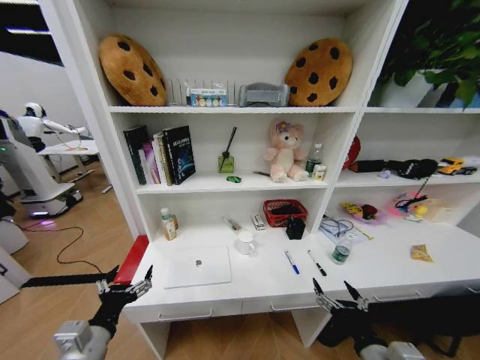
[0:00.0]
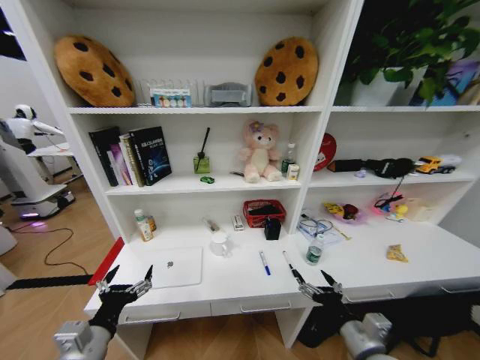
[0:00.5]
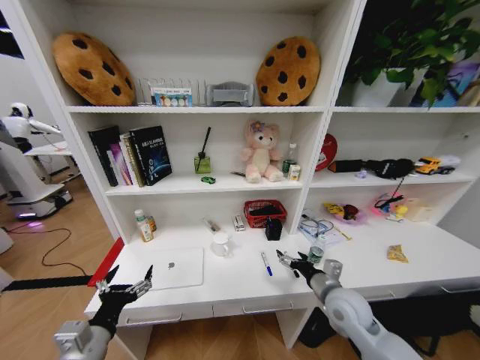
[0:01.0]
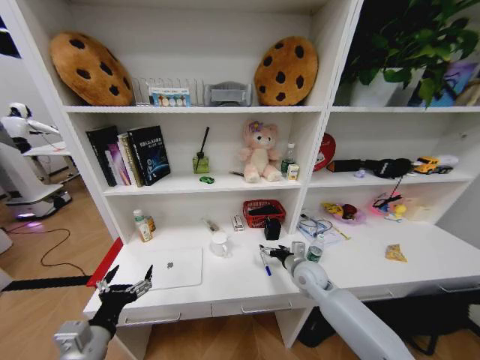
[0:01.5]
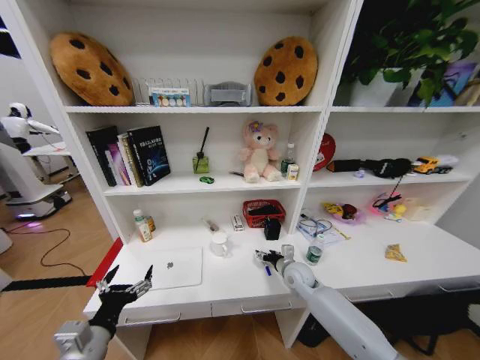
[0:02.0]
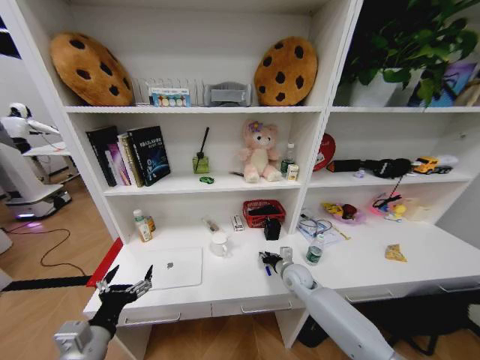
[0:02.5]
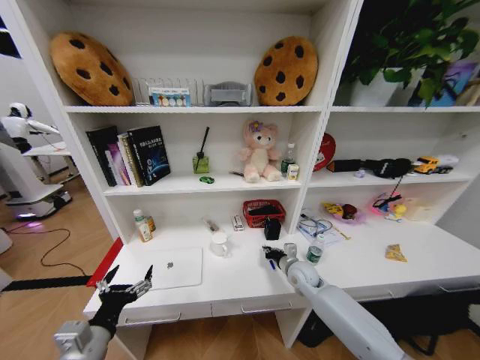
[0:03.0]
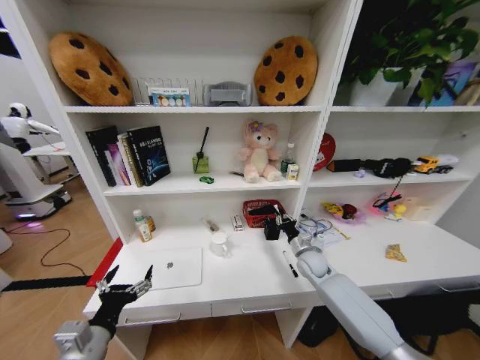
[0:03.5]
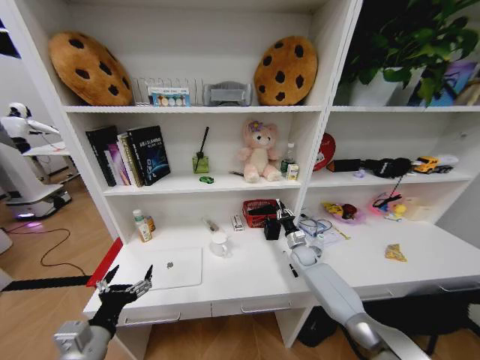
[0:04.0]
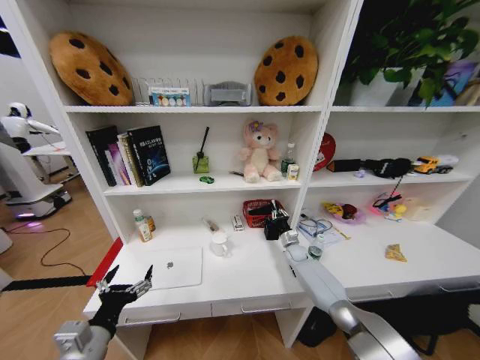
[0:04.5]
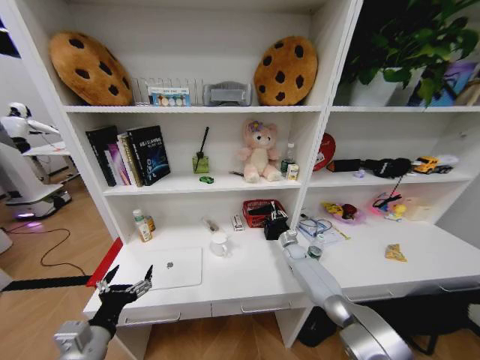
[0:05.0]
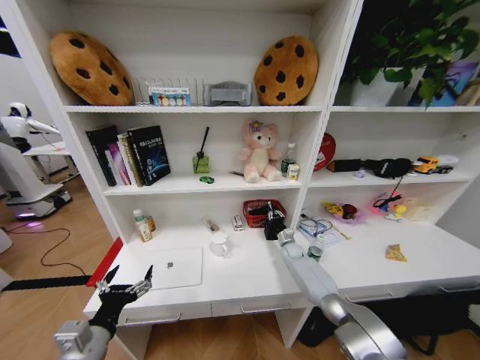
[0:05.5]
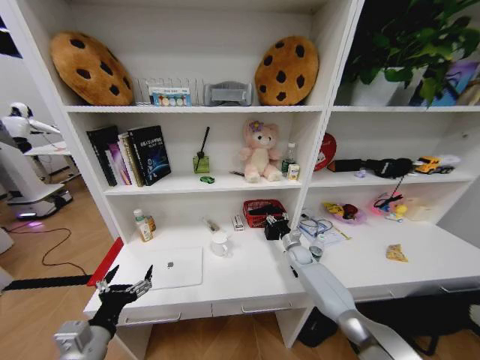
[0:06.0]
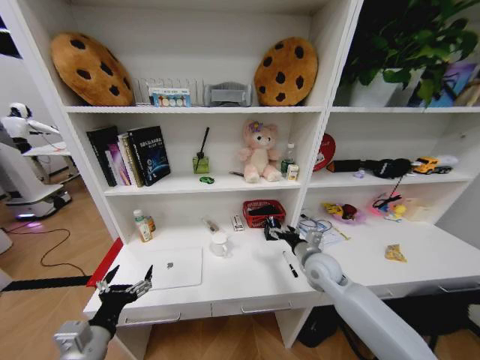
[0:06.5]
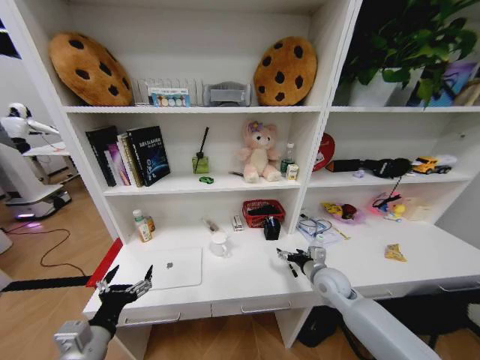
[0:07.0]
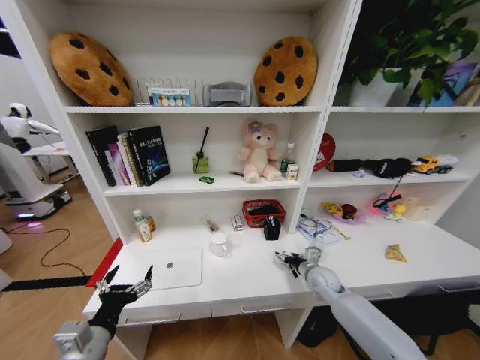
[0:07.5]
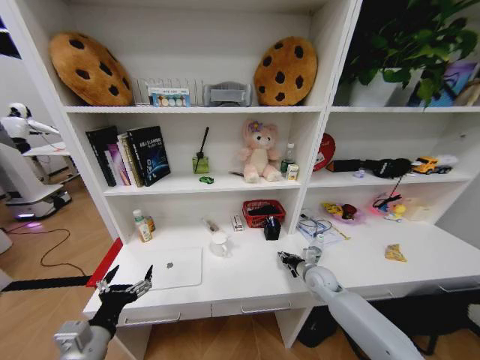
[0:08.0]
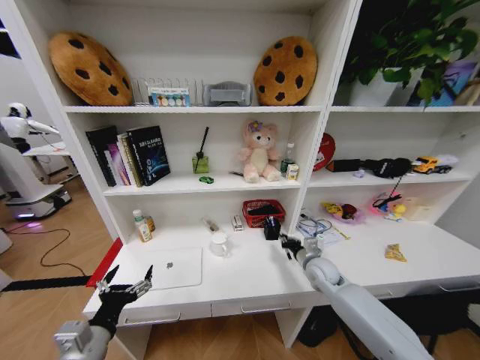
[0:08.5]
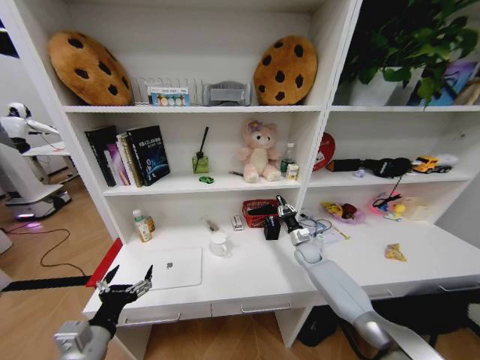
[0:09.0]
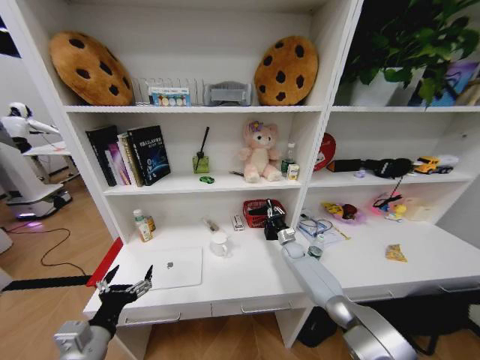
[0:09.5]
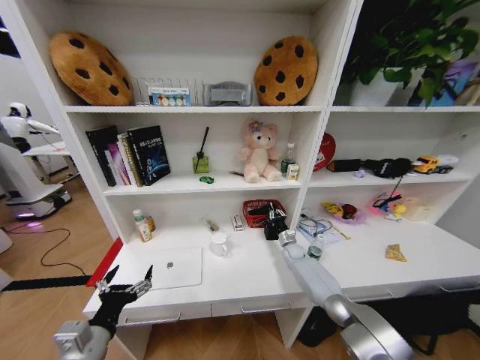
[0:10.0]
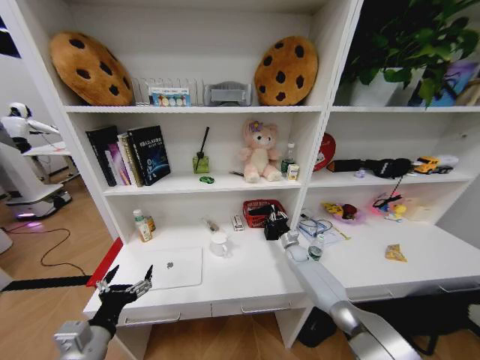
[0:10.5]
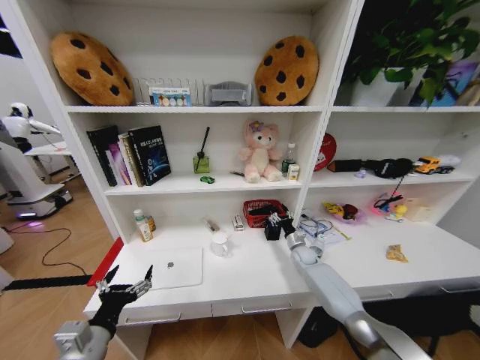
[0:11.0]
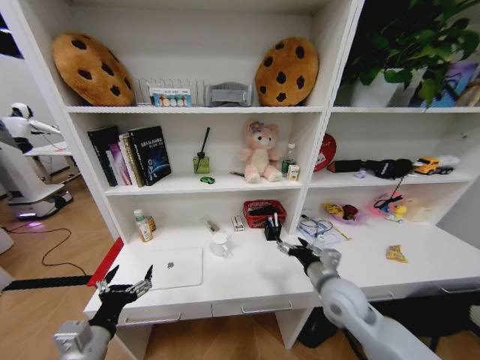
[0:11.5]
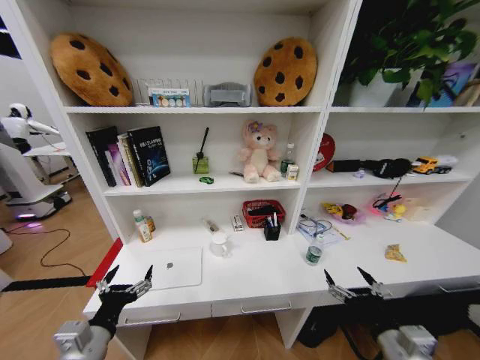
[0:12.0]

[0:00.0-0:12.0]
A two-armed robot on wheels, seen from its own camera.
Task of the whole recording: Organize the objects on the table.
0:00.0 to 0:02.0: The right gripper travels forward by approximately 30 cm.
0:02.0 to 0:04.0: The right gripper goes some 15 cm forward and to the right, and closes its fingers.
0:04.0 to 0:06.0: The right gripper opens.
0:06.0 to 0:08.0: The right gripper is displaced backward by roughly 15 cm, and opens, then closes again.
0:08.0 to 0:10.0: The right gripper is displaced forward and downward by roughly 15 cm, and closes its fingers.
0:10.0 to 0:12.0: The right gripper heads backward and upward, covering about 50 cm, and opens its fingers.

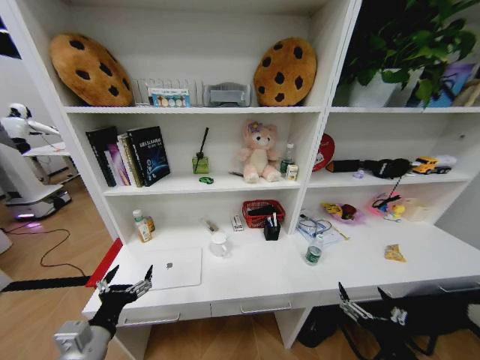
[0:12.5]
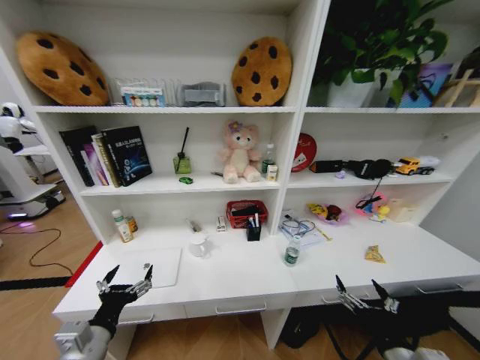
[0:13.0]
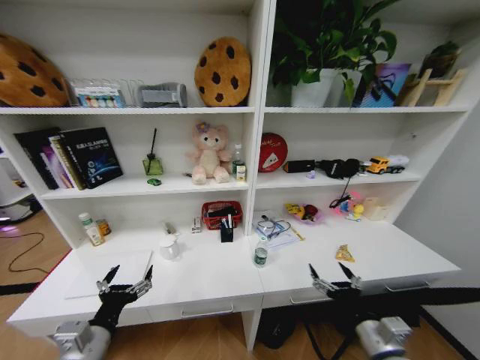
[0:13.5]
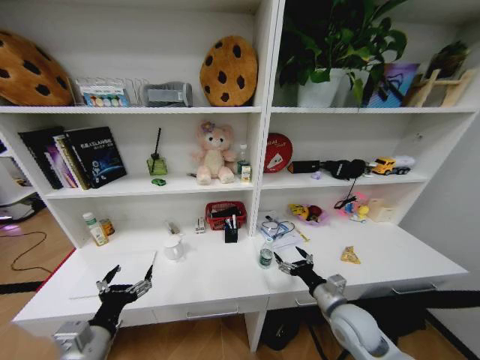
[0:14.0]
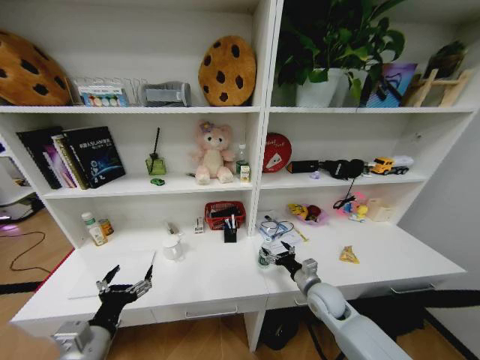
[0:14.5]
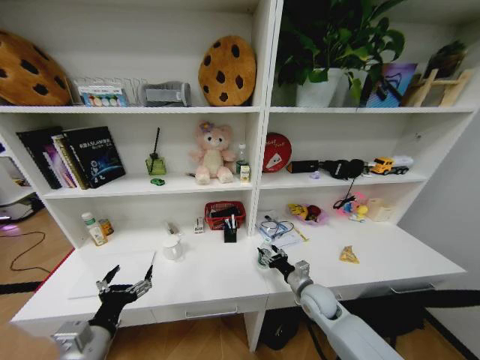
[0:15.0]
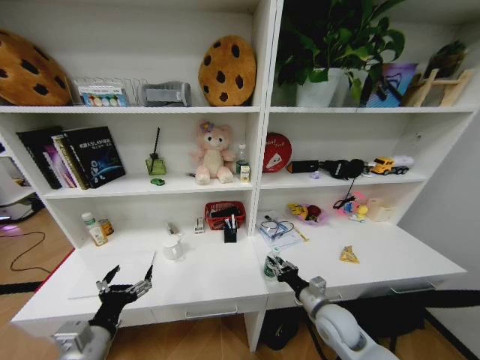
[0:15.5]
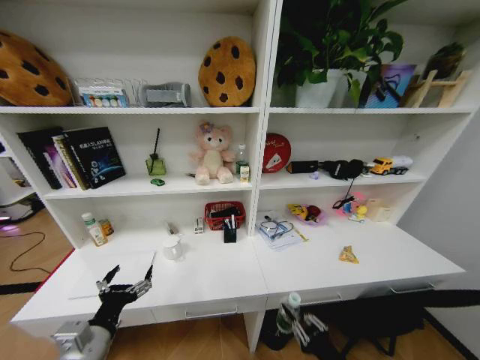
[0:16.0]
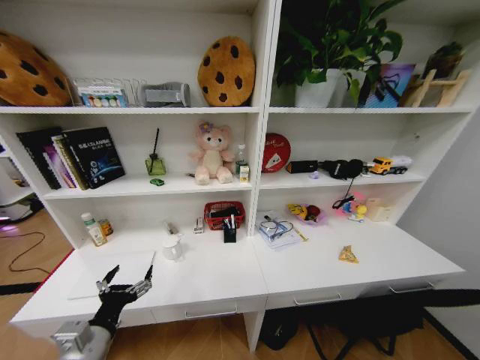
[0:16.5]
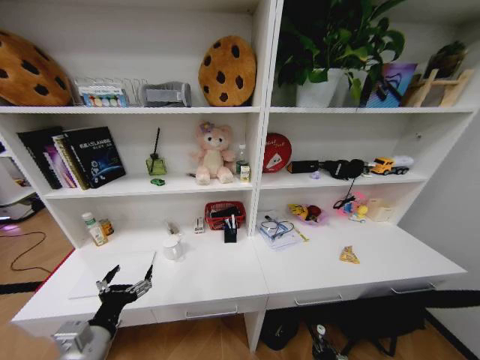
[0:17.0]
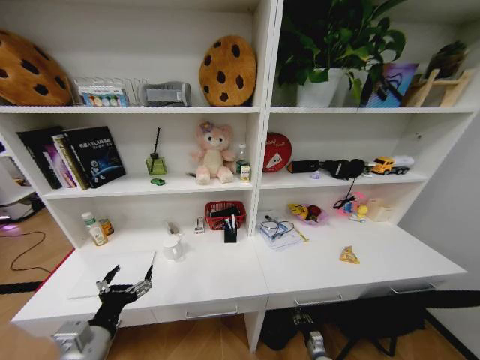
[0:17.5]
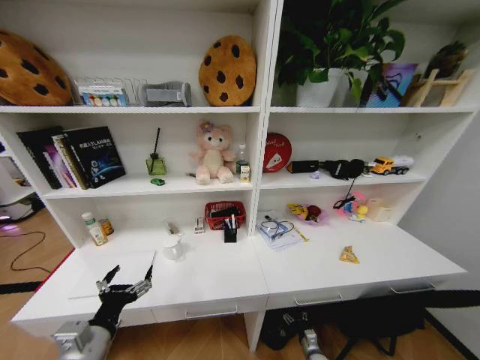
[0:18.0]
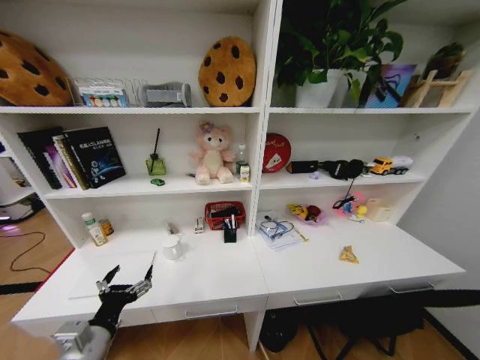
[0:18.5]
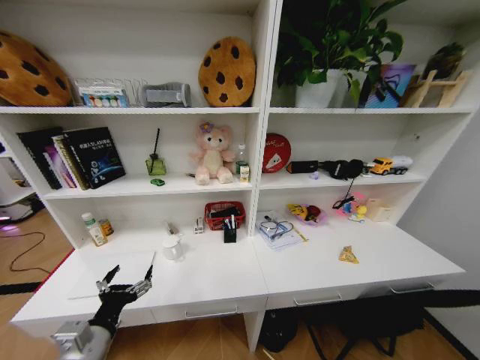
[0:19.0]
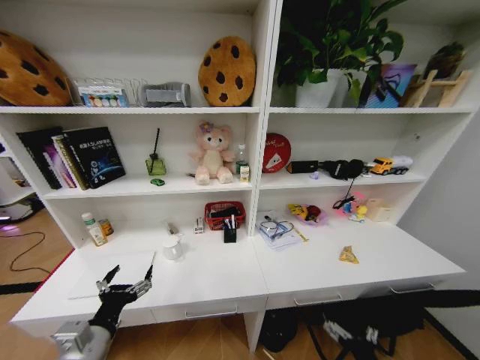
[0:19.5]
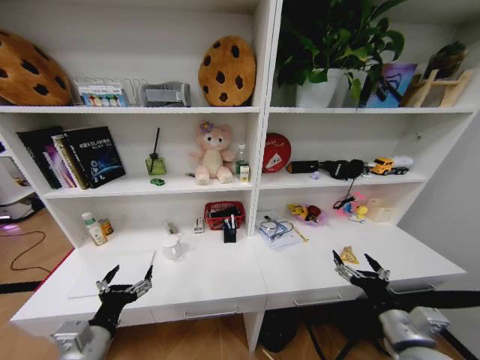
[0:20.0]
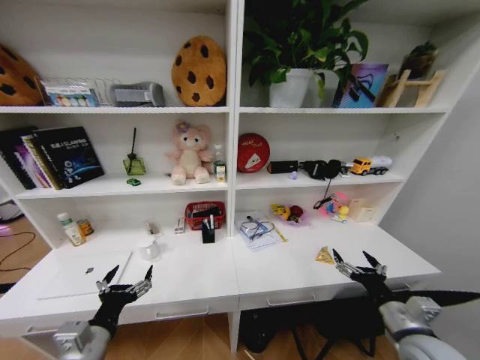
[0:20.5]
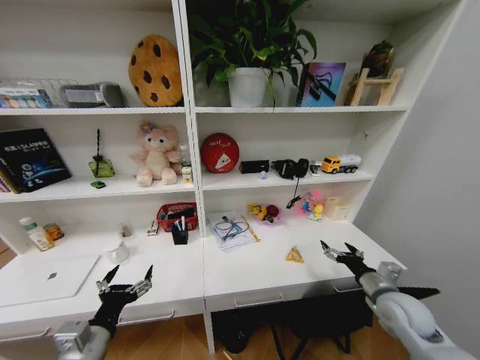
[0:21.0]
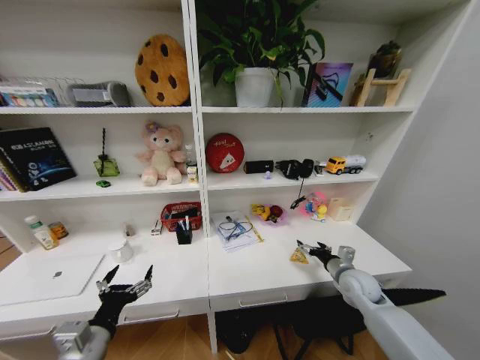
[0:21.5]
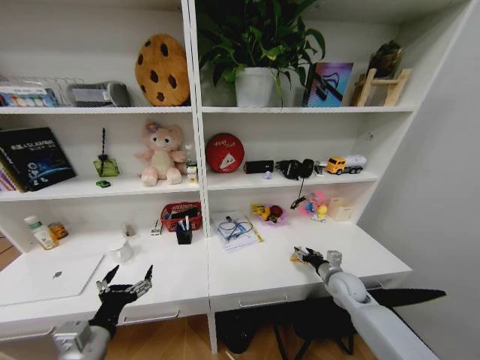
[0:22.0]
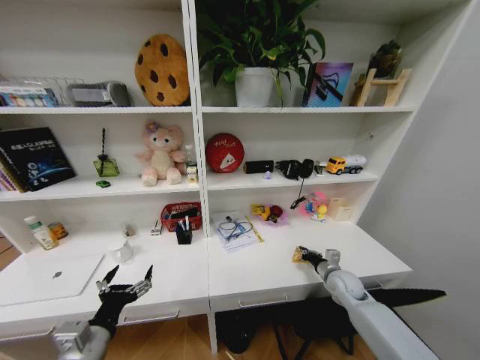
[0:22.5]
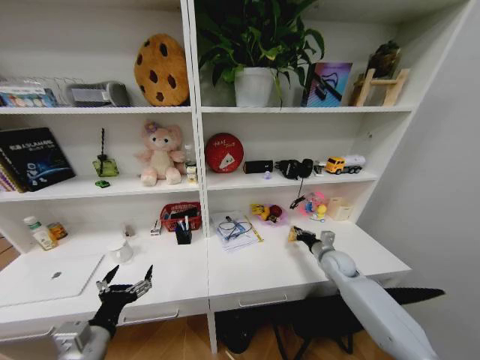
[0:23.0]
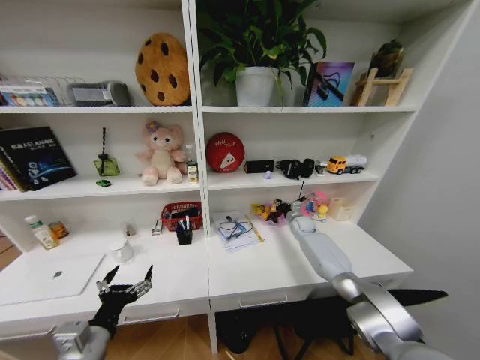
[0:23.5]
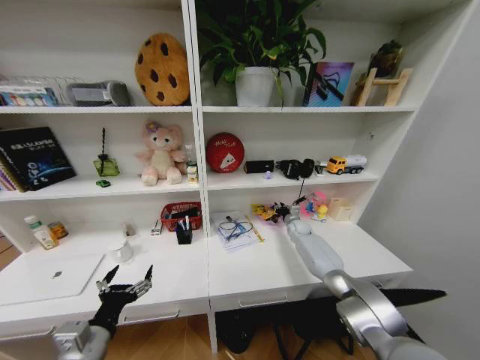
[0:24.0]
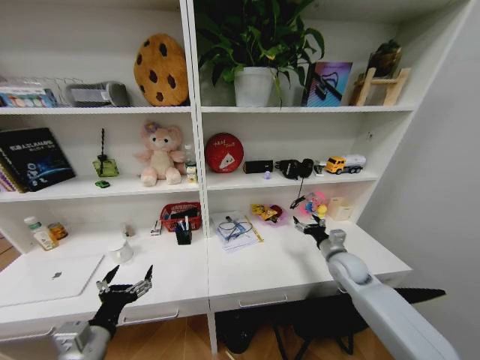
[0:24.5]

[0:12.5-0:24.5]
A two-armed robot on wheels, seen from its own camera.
Task of the whole recording: Organize the objects on the table.
0:12.5 to 0:14.5: The right gripper heads forward, covering some 25 cm.
0:14.5 to 0:16.5: The right gripper travels backward and downward by some 40 cm, and closes.
0:18.5 to 0:20.5: The right gripper heads upward, covering some 40 cm.
0:20.5 to 0:22.5: The right gripper travels forward and downward by roughly 20 cm, and closes up.
0:22.5 to 0:24.5: The right gripper heads upward, covering roughly 10 cm, reaches some 25 cm forward, then returns, and opens its fingers.
